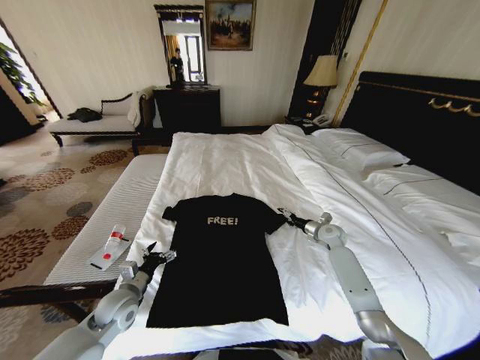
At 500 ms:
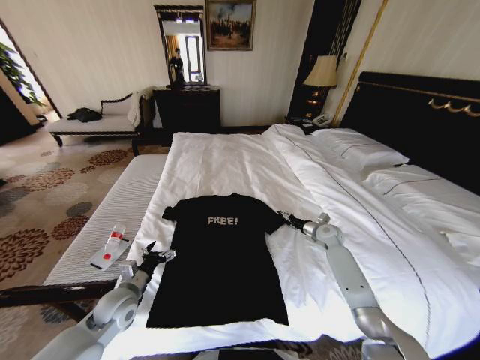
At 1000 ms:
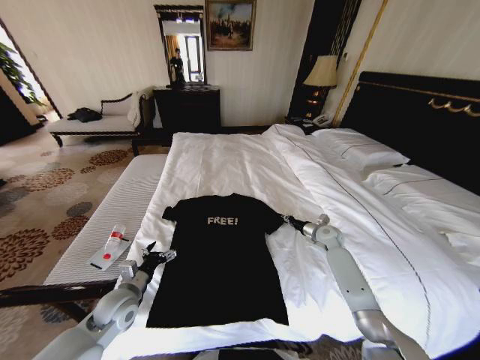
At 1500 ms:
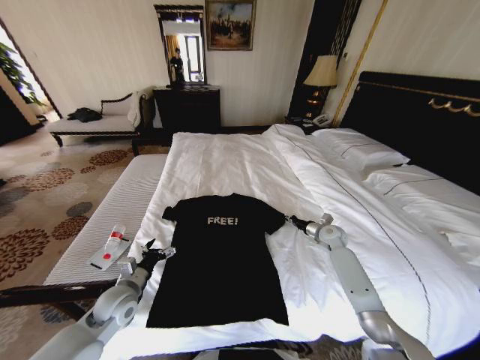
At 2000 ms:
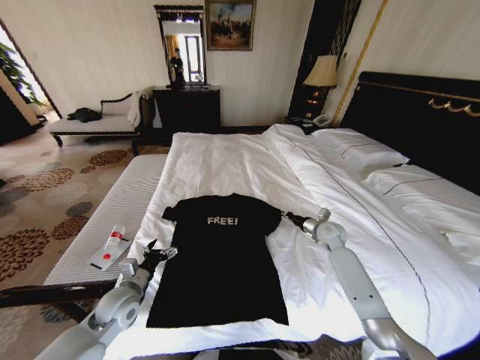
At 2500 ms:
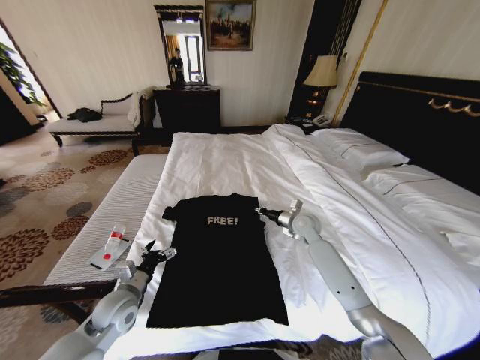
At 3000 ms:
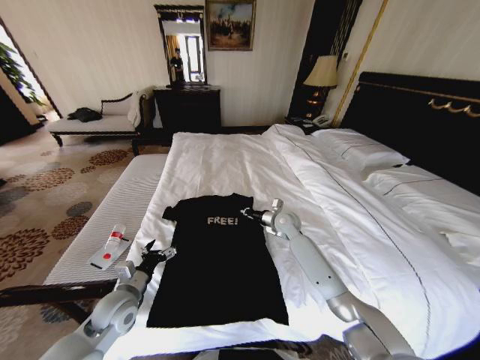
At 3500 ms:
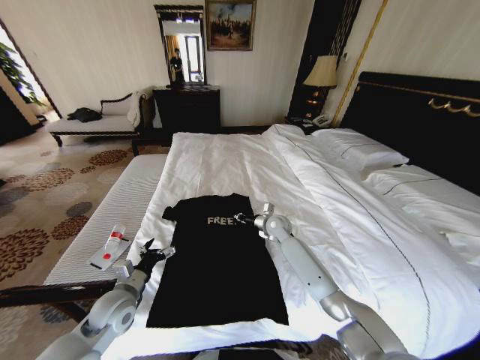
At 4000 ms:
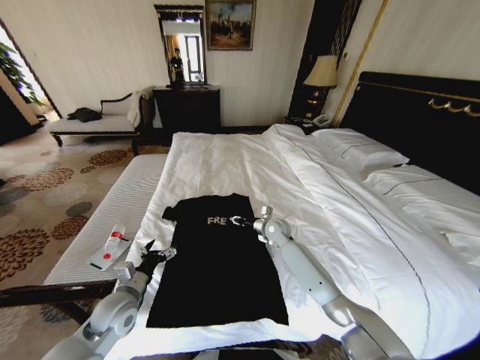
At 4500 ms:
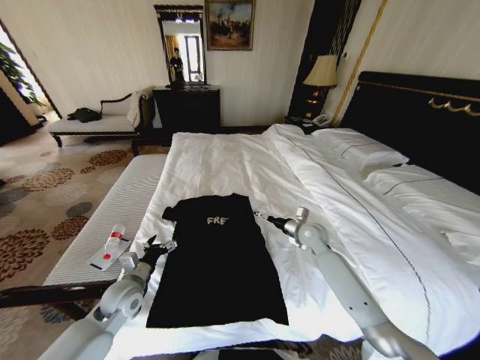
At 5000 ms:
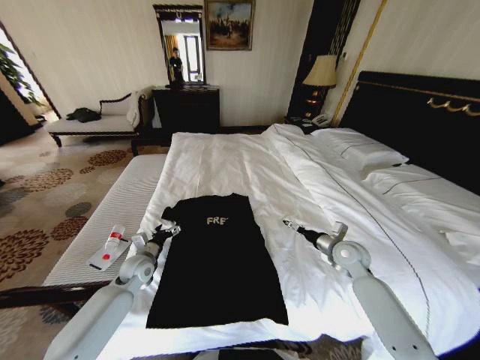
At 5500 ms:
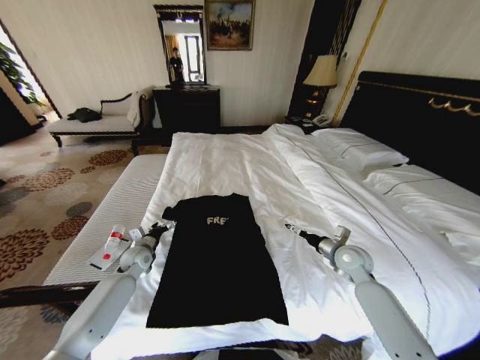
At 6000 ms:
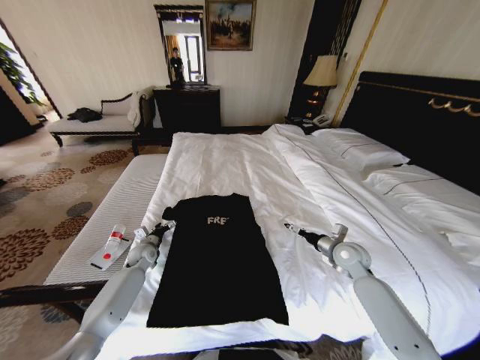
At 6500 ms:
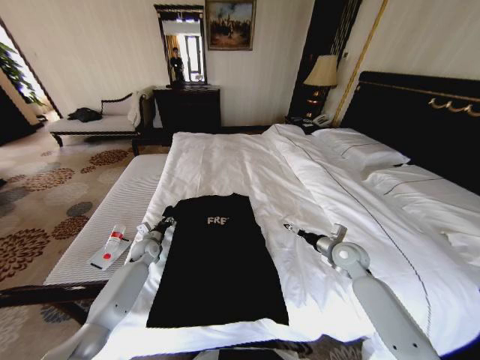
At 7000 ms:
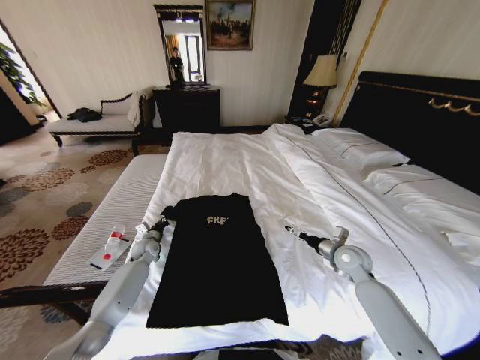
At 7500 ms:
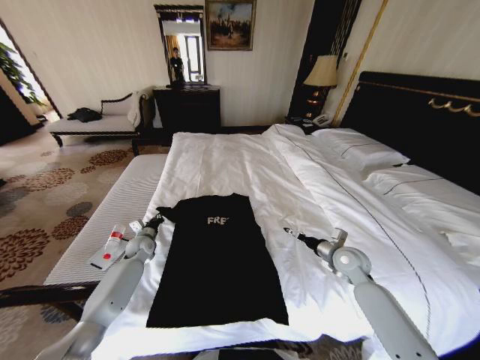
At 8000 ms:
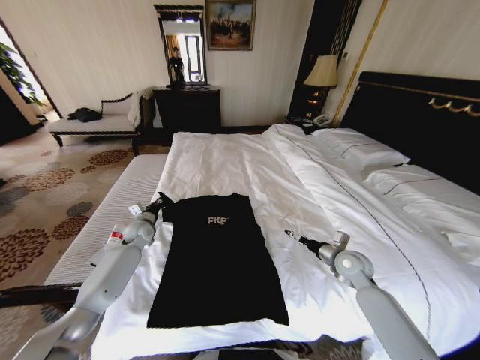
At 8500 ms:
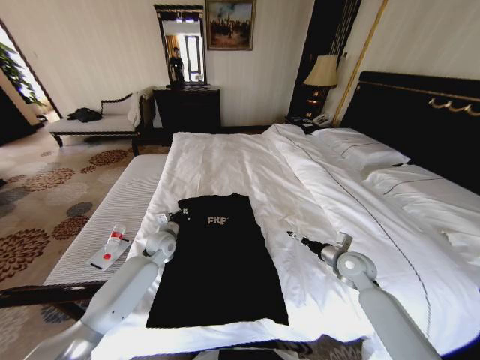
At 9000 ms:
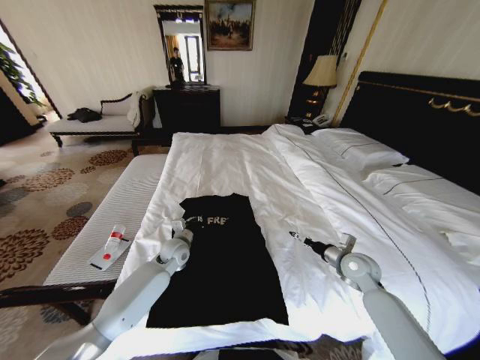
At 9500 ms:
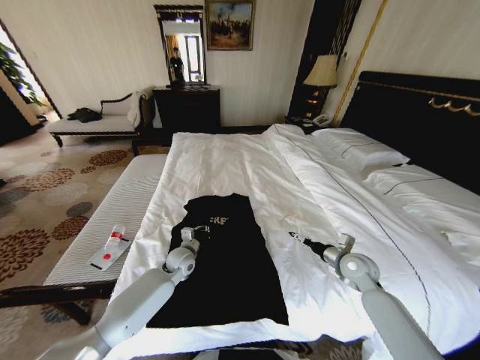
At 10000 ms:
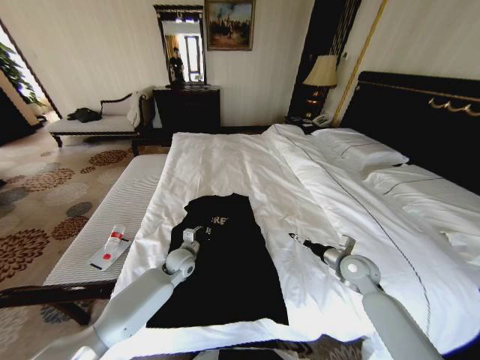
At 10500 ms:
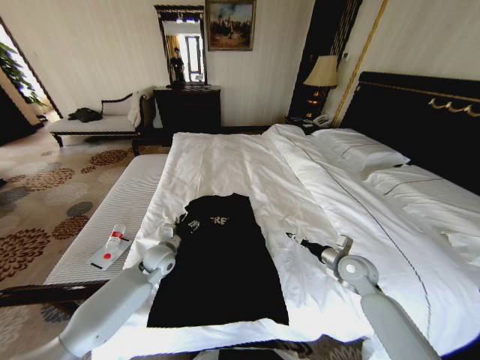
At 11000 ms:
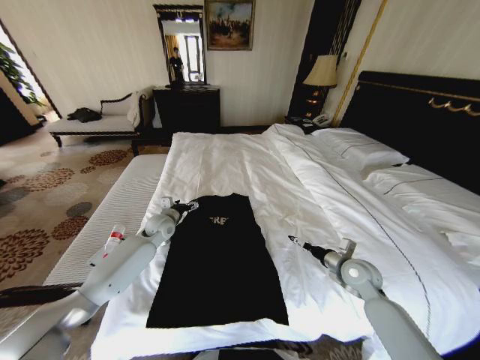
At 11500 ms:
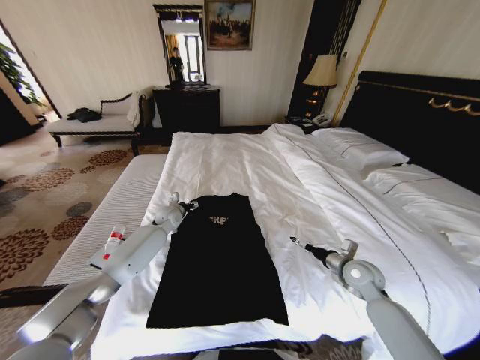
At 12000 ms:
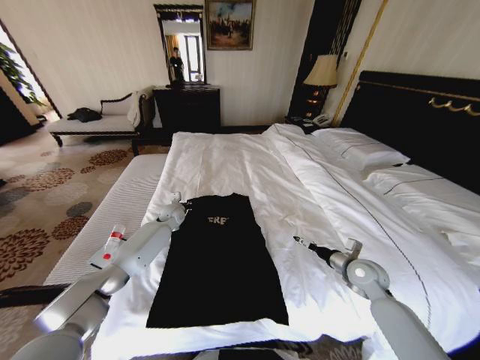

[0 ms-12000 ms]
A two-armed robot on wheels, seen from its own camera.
Task of the whole recording: Fold the clothes on the bed.
0 ms to 2000 ms: The right gripper ends up roughly 5 cm from where it was, and closes its fingers.
2000 ms to 4000 ms: The right gripper heads to the left, covering roughly 20 cm, and opens.
4000 ms to 6000 ms: The left gripper goes about 20 cm forward and downward; the right gripper goes about 25 cm to the right and backward, and opens up.
6000 ms to 8000 ms: The left gripper goes approximately 10 cm upward and forward, and closes.
8000 ms to 10000 ms: The left gripper goes about 20 cm to the right and backward.
10000 ms to 12000 ms: The left gripper is displaced forward by roughly 15 cm, and opens, then closes again.

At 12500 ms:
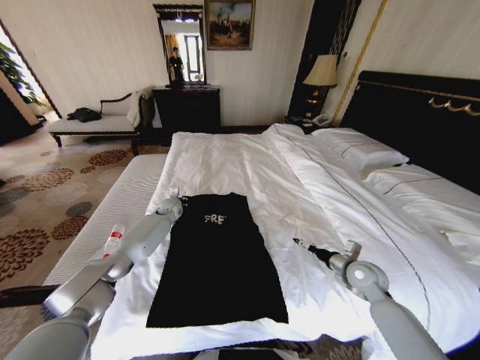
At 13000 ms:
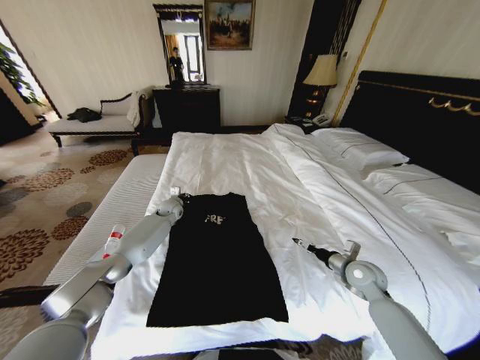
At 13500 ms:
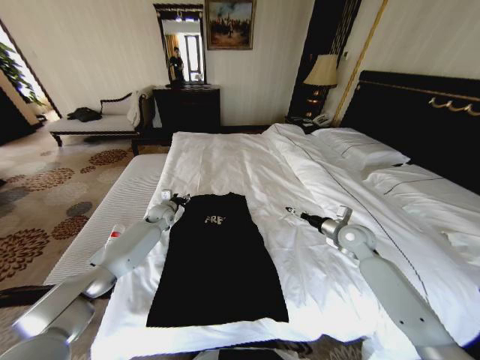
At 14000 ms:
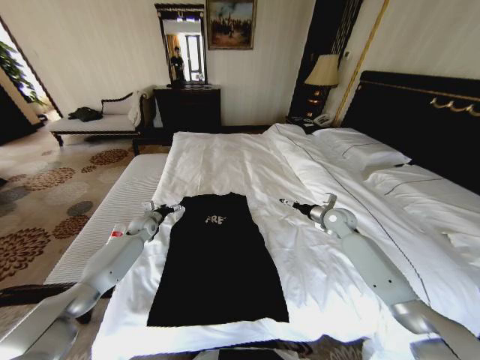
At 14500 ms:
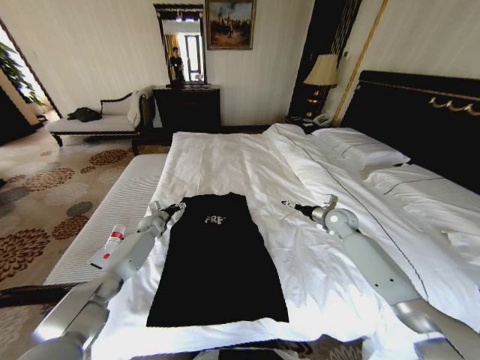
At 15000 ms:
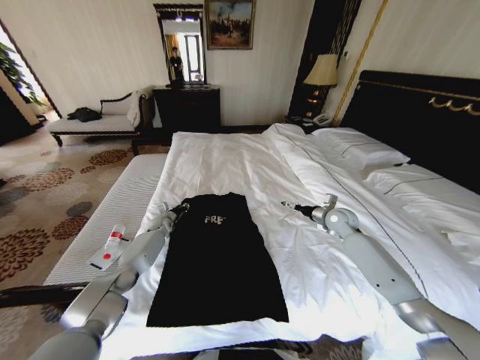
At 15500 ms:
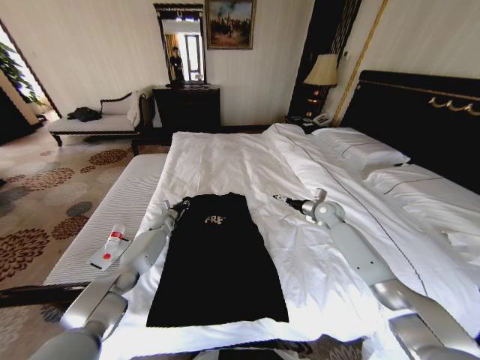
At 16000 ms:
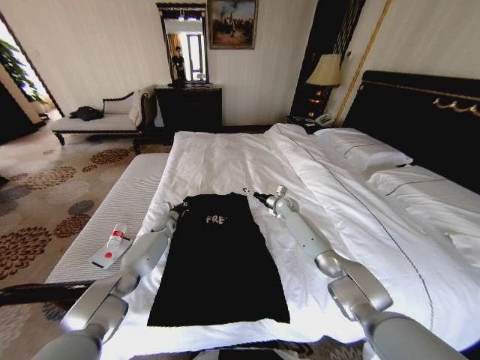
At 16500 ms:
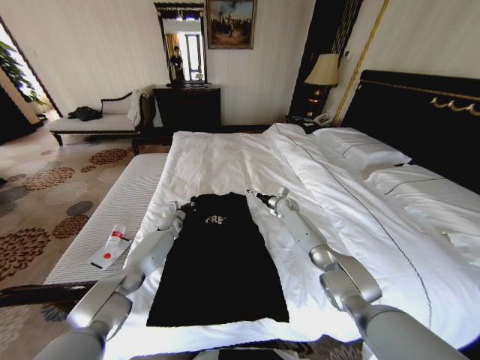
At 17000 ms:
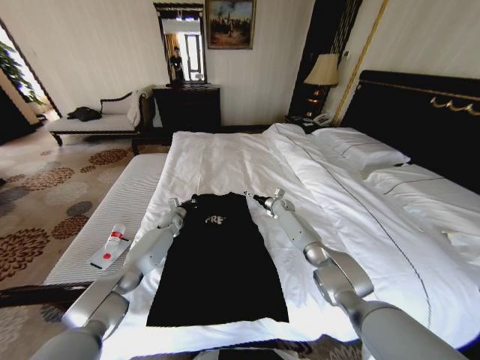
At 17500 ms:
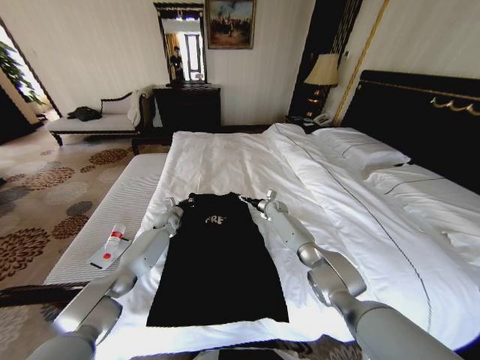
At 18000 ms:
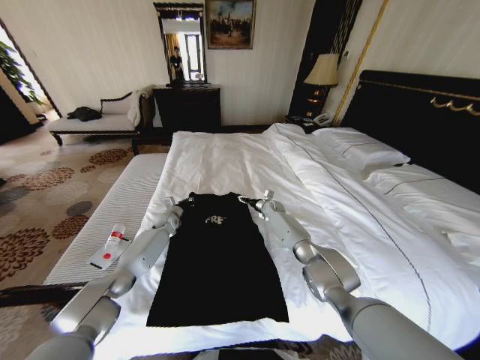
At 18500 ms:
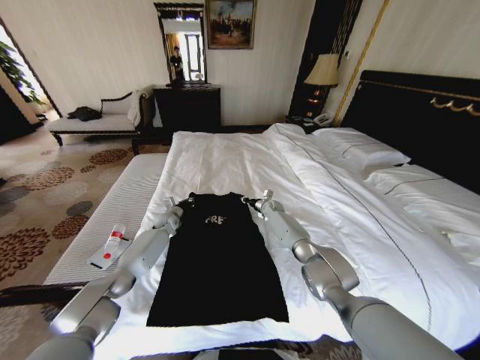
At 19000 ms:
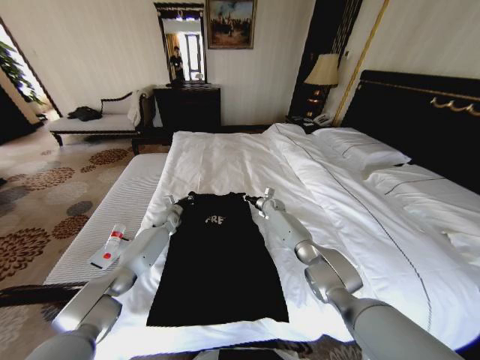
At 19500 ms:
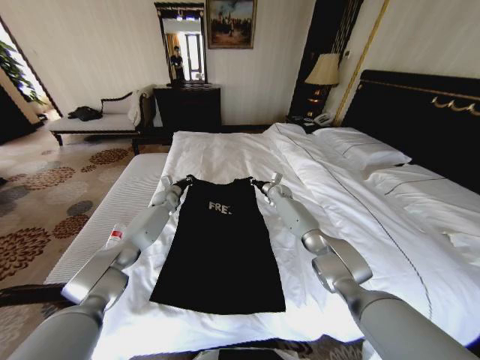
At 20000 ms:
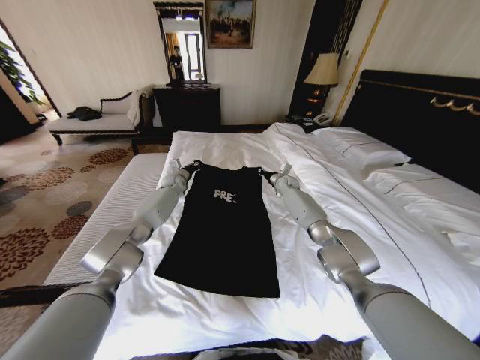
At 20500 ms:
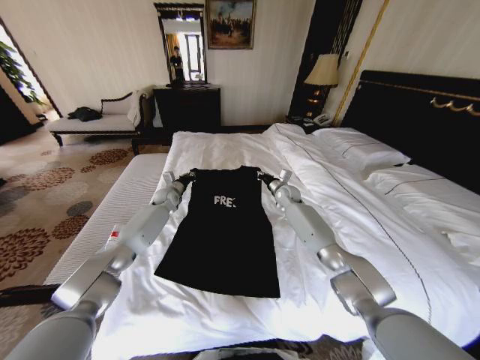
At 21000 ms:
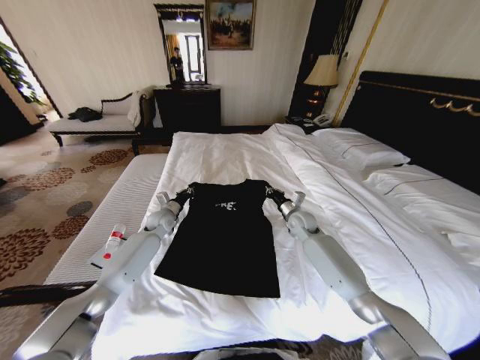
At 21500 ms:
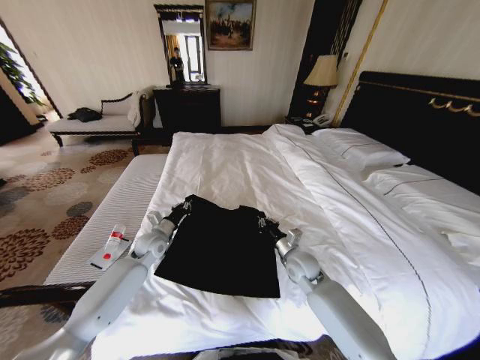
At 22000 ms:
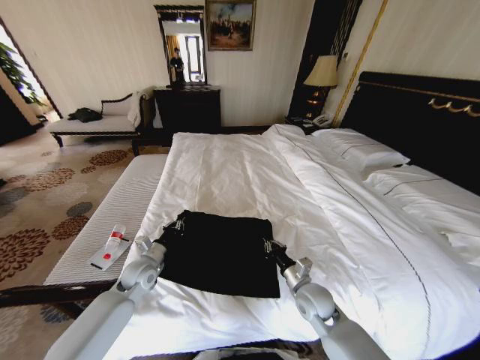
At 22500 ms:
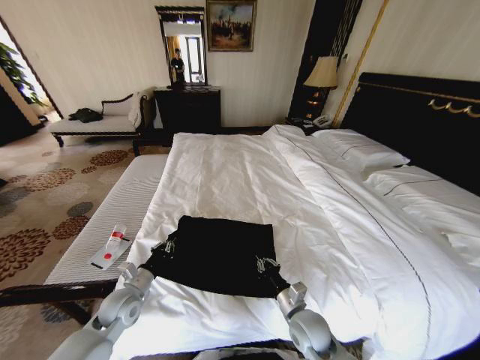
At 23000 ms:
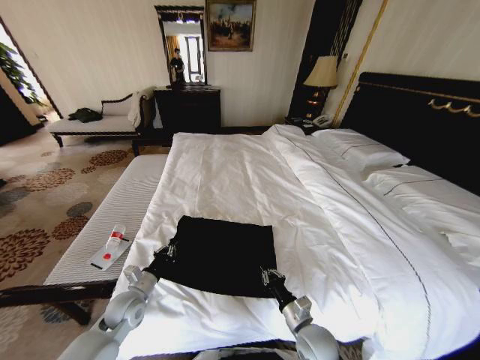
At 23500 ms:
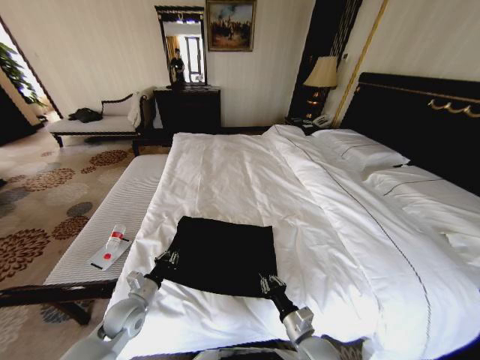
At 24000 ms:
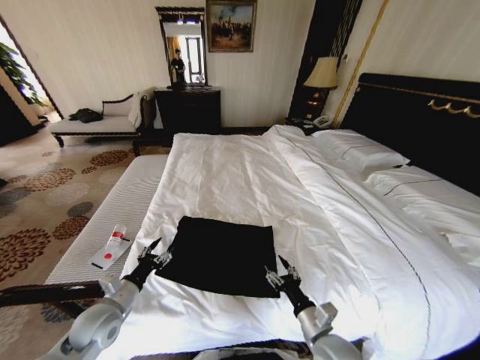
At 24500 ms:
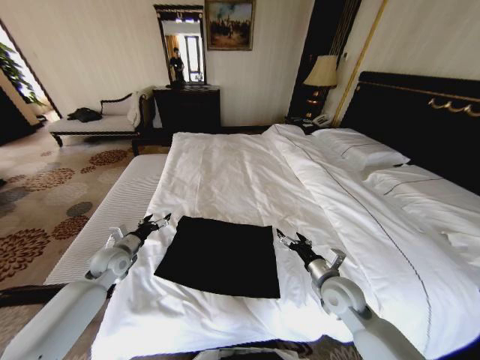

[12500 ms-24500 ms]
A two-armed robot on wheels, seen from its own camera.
Task of the whole recording: Fold the clothes on the bed.
12500 ms to 14500 ms: The right gripper goes some 15 cm forward. The left gripper moves to the left and downward, some 10 cm, and opens its fingers.
14500 ms to 16500 ms: The right gripper travels forward, to the left and downward by roughly 20 cm; the left gripper travels to the right by approximately 5 cm, and closes its fingers.
16500 ms to 18500 ms: The right gripper shifts some 5 cm to the left, and closes up.
18500 ms to 20500 ms: The right gripper moves upward, some 10 cm. Meanwhile the left gripper shifts approximately 10 cm upward and forward.
20500 ms to 22500 ms: Both grippers travel together backward, approximately 40 cm.
22500 ms to 24500 ms: The left gripper is displaced forward and to the left by some 10 cm, and opens. The right gripper shifts approximately 15 cm to the right, upward and forward, and opens.

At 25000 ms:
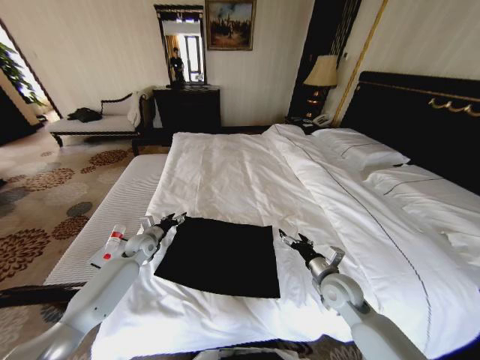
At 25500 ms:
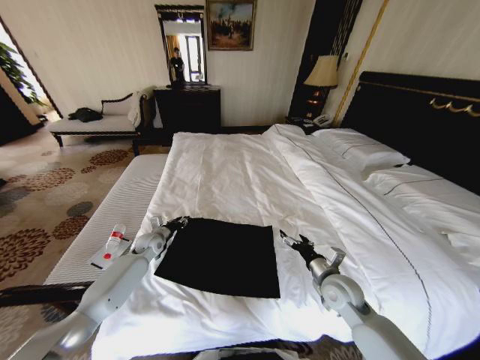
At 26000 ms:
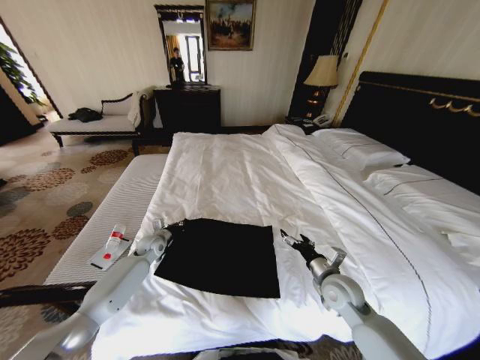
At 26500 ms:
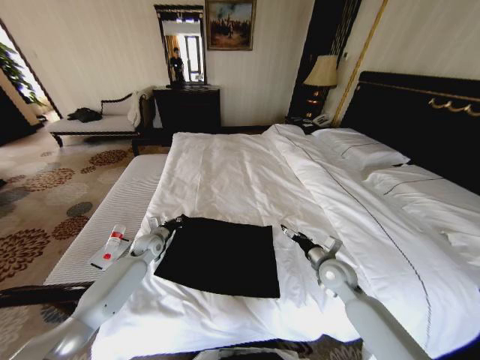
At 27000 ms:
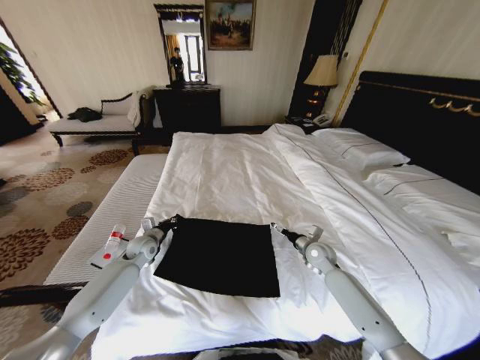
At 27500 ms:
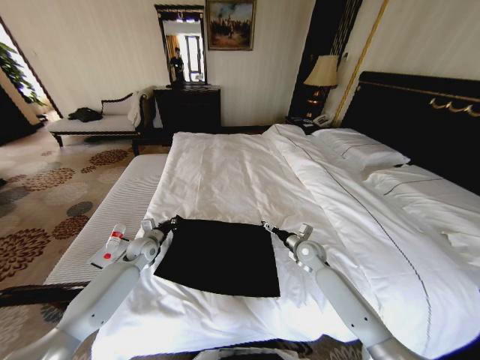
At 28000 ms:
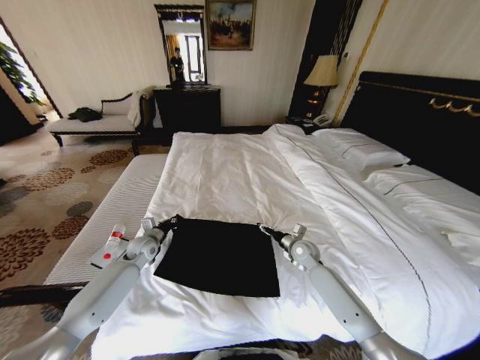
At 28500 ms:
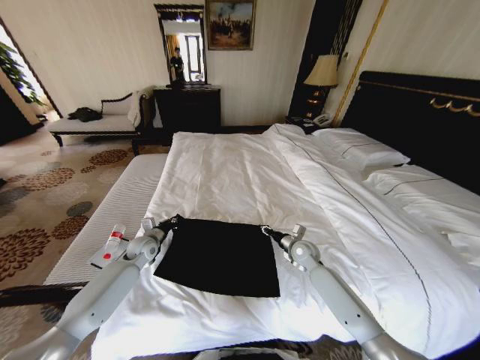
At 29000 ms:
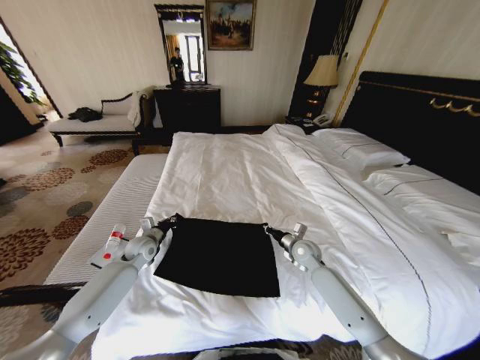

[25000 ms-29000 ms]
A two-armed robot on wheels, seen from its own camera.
Task of the whole recording: Fold the clothes on the bed.
25000 ms to 27000 ms: The left gripper closes its fingers; the right gripper moves forward, approximately 15 cm.
27000 ms to 29000 ms: The right gripper closes up.
